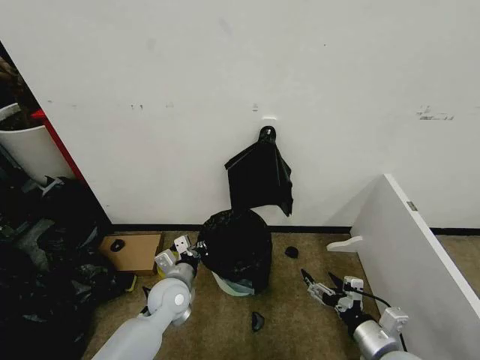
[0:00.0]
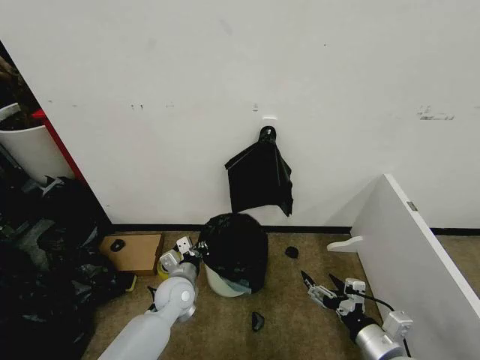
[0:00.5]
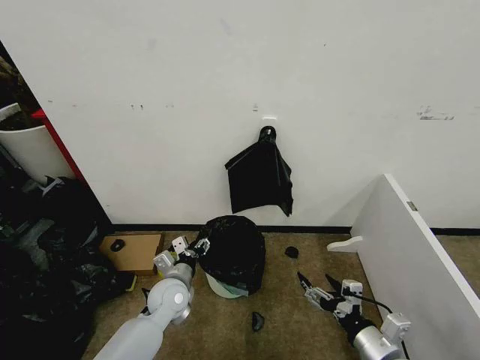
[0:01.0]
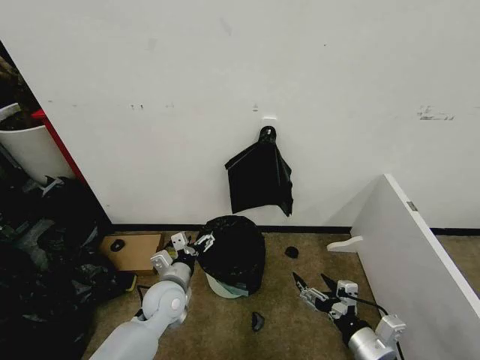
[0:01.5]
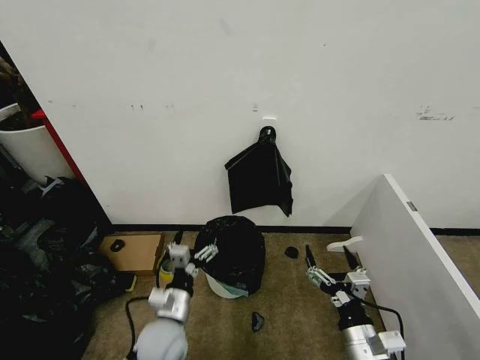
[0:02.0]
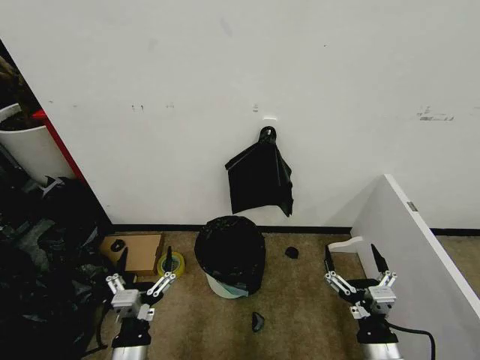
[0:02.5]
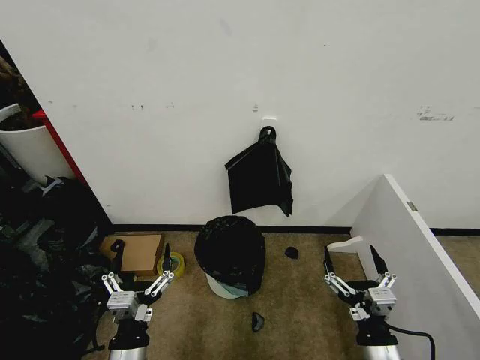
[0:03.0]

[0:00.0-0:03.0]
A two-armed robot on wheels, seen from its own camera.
Task of the whole recording: Place the garbage bag over the trash bin.
0:00.0 to 0:01.5: The left gripper opens its fingers.
0:01.5 to 0:03.0: The left gripper travels backward by approximately 20 cm.

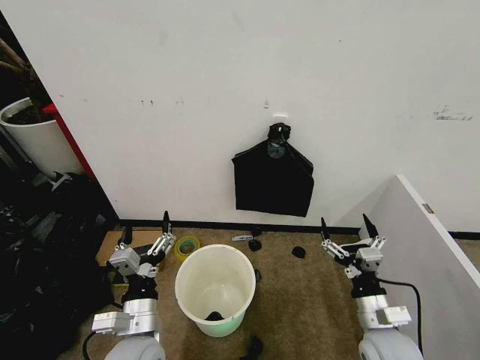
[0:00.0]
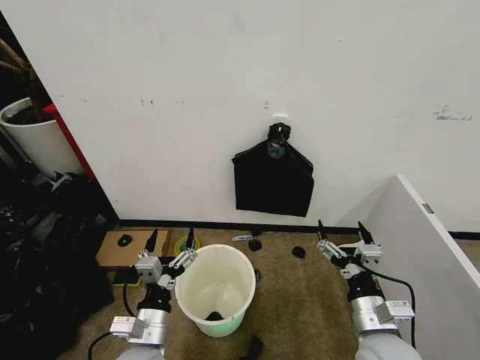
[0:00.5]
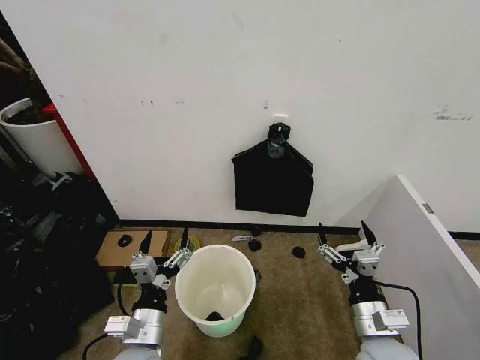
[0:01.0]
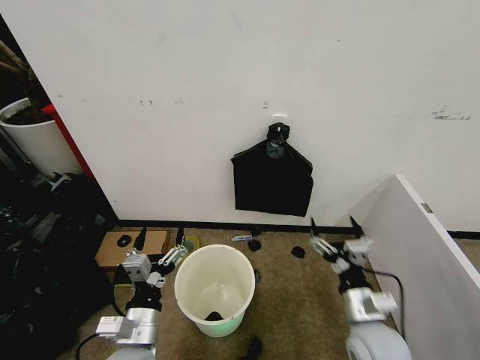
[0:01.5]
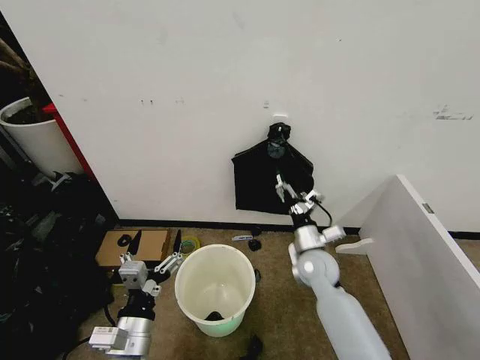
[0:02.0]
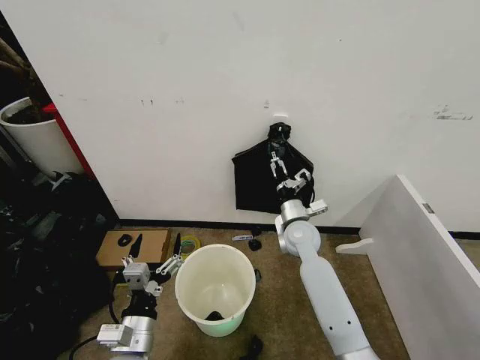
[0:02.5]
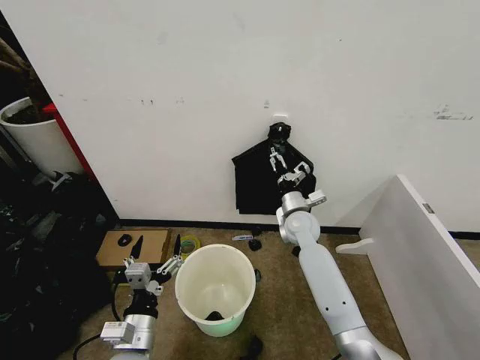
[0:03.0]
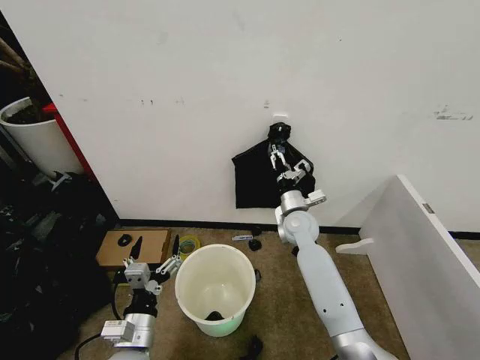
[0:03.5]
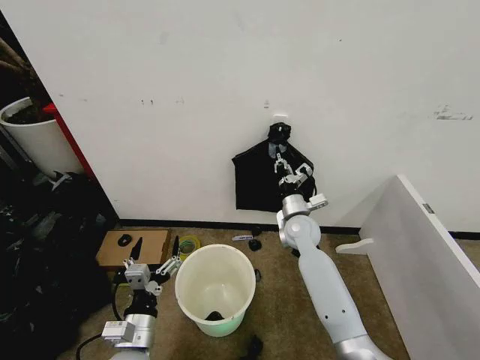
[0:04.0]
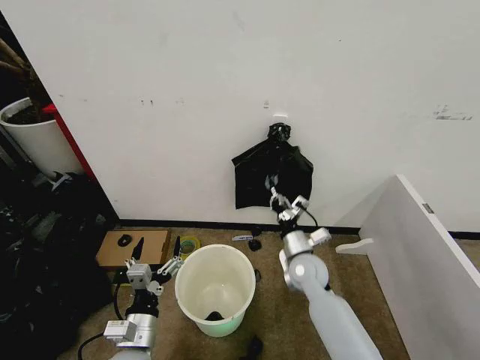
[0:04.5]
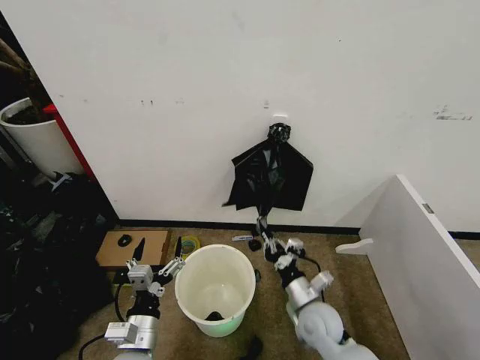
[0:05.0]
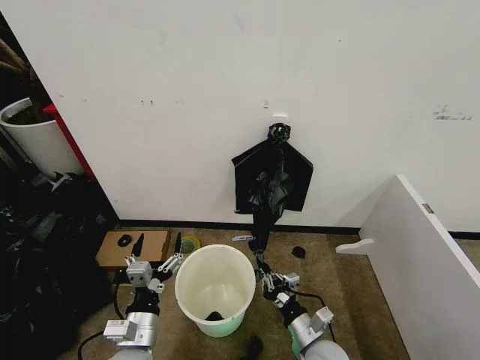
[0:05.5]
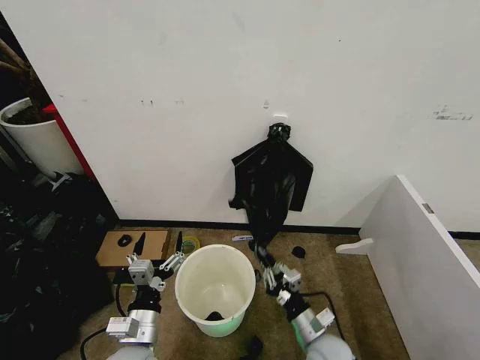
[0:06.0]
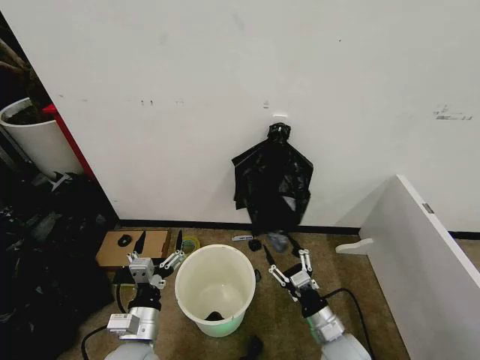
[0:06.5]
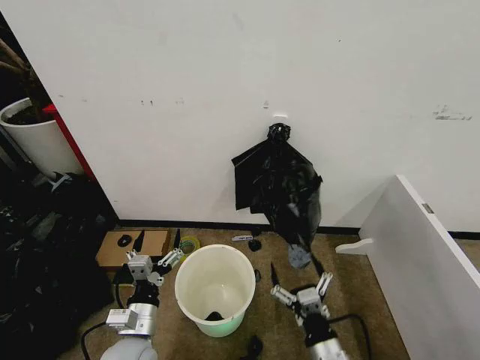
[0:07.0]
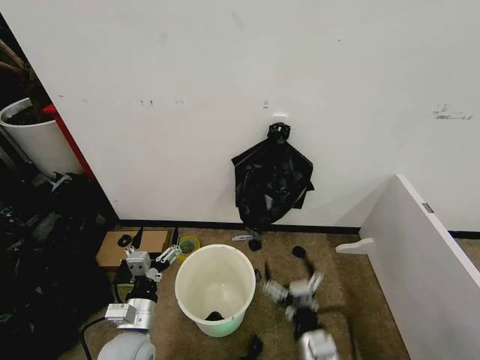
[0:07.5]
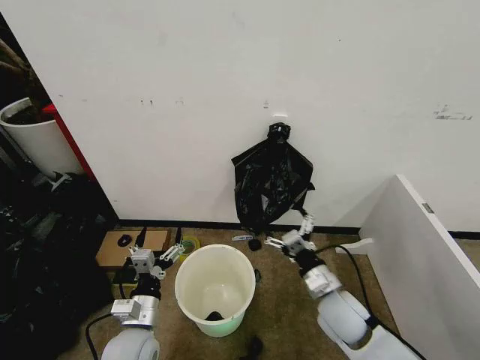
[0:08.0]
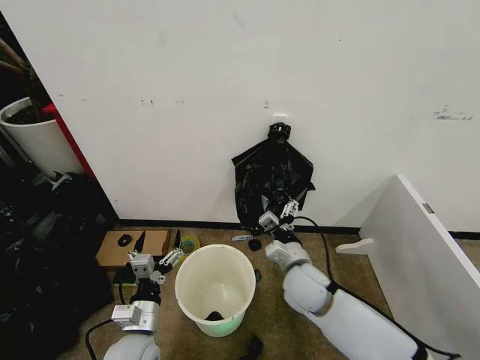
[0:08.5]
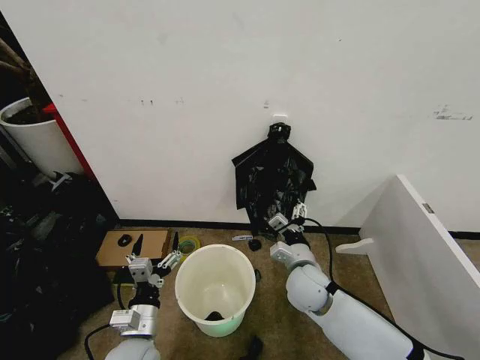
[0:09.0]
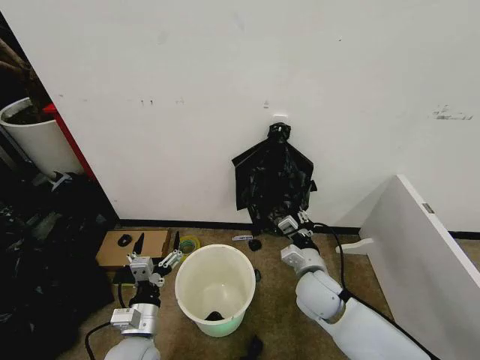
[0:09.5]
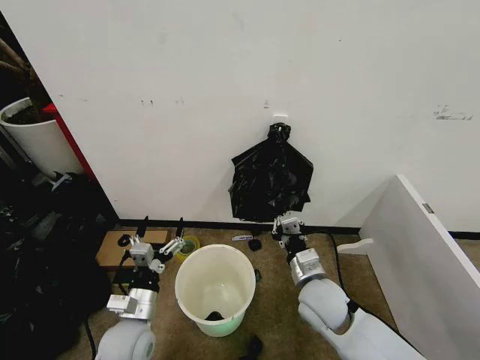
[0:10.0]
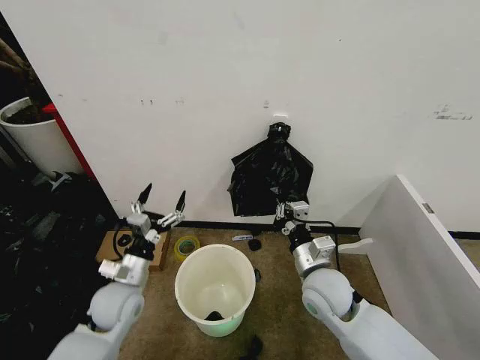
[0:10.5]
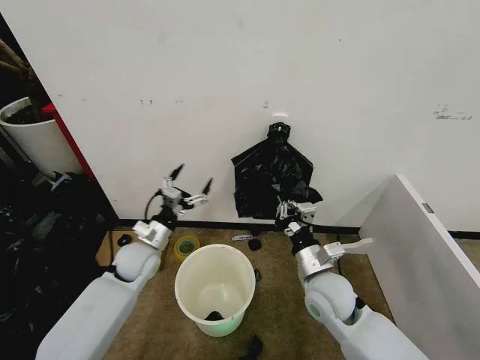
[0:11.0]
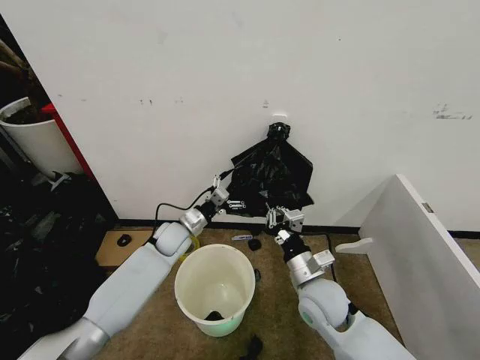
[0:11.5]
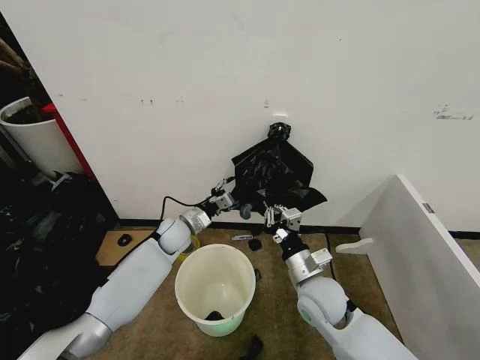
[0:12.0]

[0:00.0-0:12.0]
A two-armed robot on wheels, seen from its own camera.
Task of the whole recording: Place the garbage bag over the trash bin.
0:02.0 to 0:04.0: The left gripper is displaced downward by approximately 5 cm, while the right gripper moves forward, about 10 cm, and closes.
0:04.0 to 0:06.0: The right gripper goes roughly 30 cm backward and downward.
0:06.0 to 0:08.0: The right gripper shifts approximately 10 cm upward and forward, and opens its fingers.
0:08.0 to 0:10.0: The right gripper closes up.
0:10.0 to 0:12.0: The left gripper is displaced forward by some 25 cm, and closes.

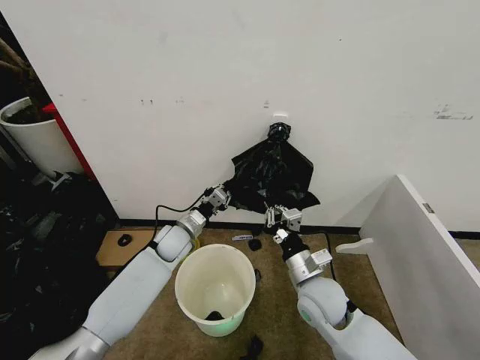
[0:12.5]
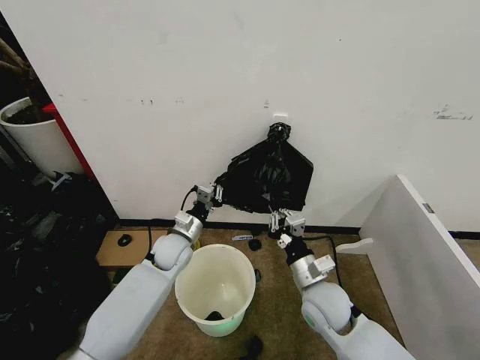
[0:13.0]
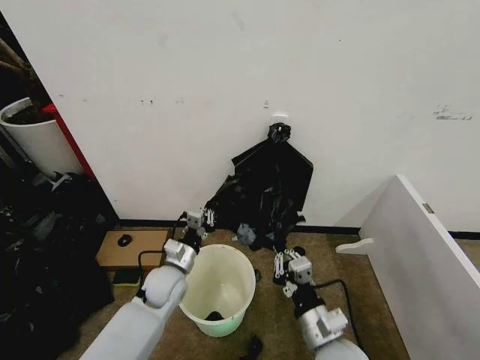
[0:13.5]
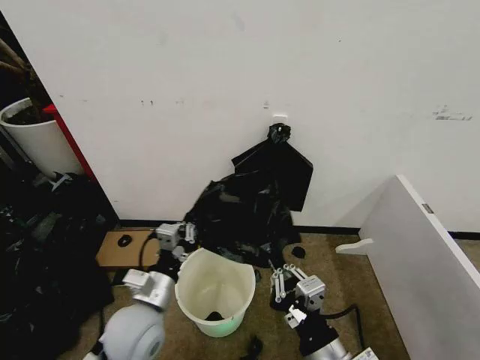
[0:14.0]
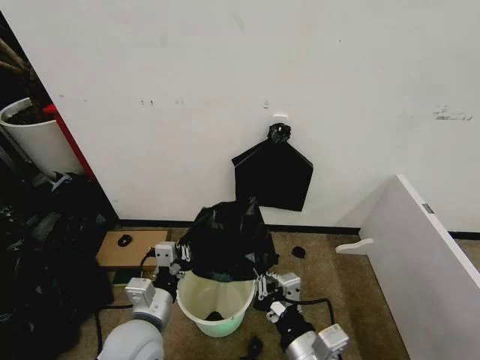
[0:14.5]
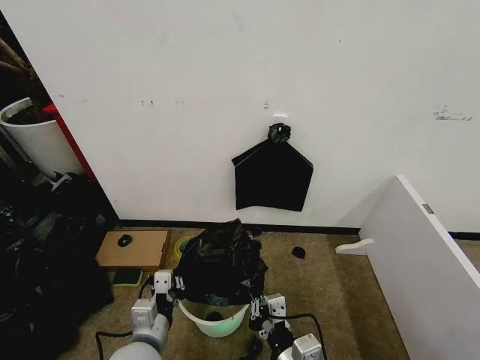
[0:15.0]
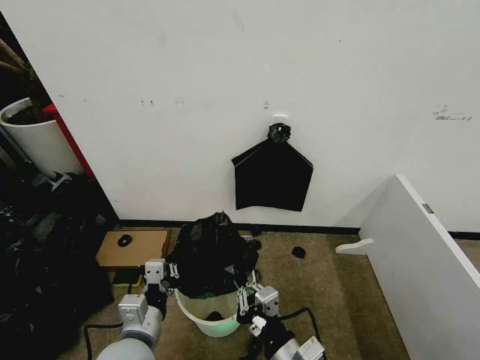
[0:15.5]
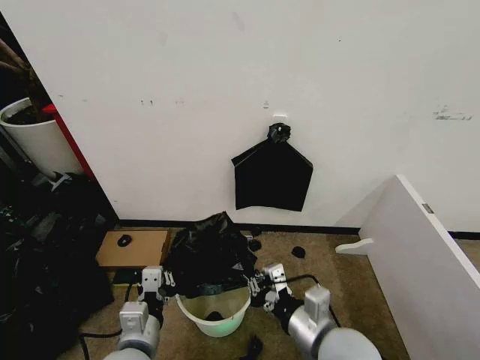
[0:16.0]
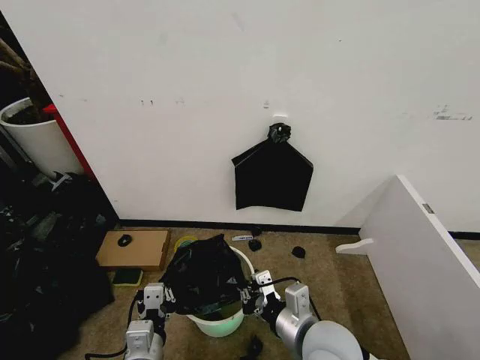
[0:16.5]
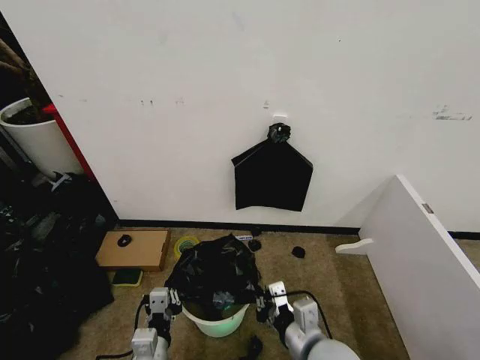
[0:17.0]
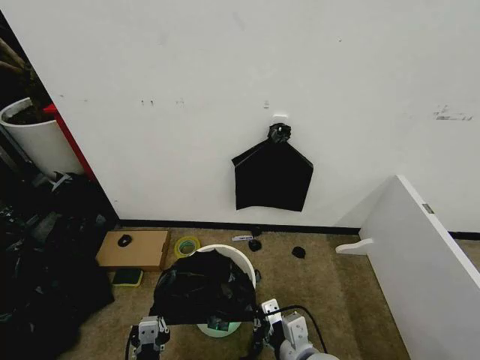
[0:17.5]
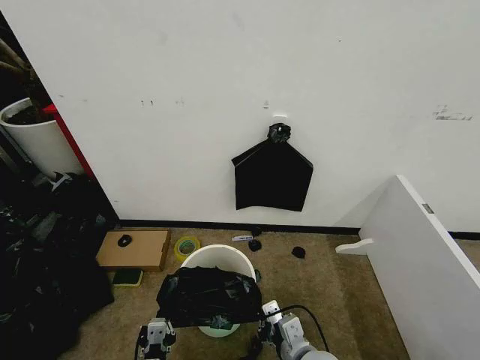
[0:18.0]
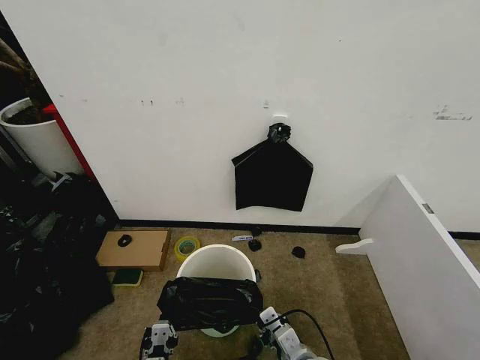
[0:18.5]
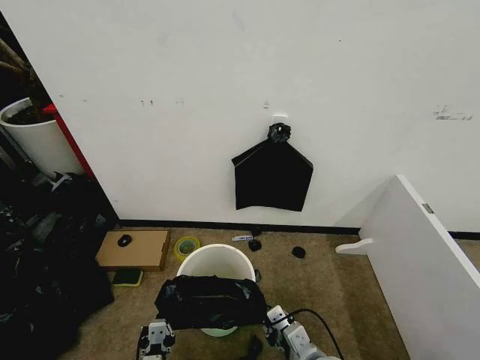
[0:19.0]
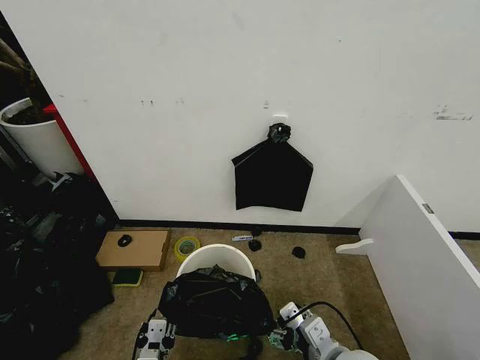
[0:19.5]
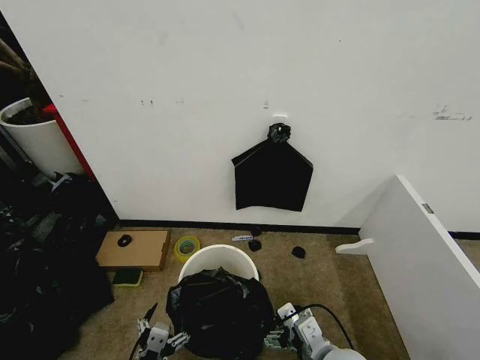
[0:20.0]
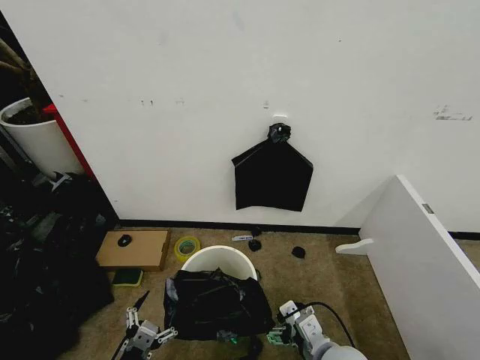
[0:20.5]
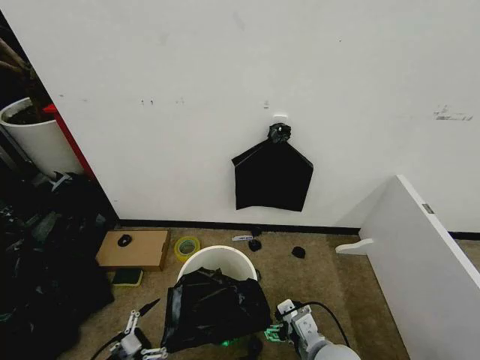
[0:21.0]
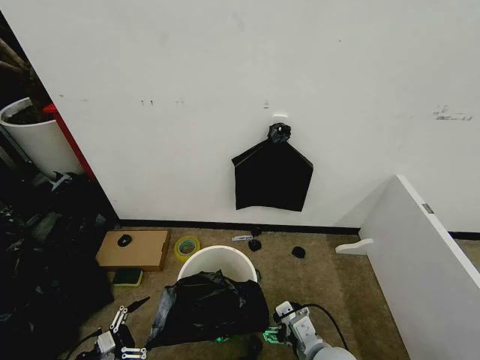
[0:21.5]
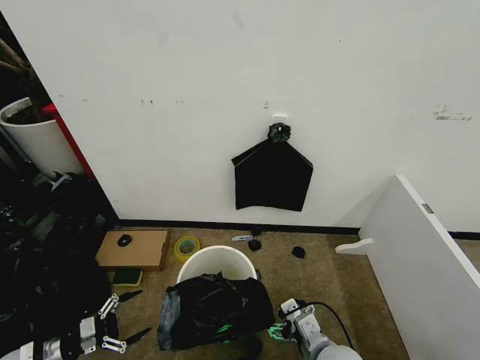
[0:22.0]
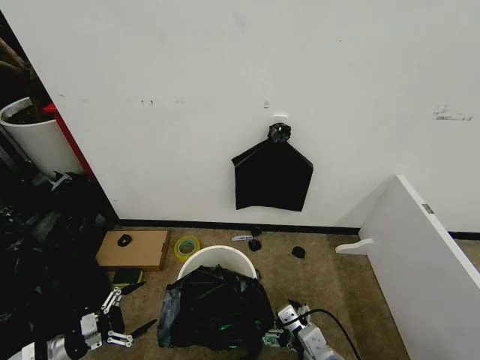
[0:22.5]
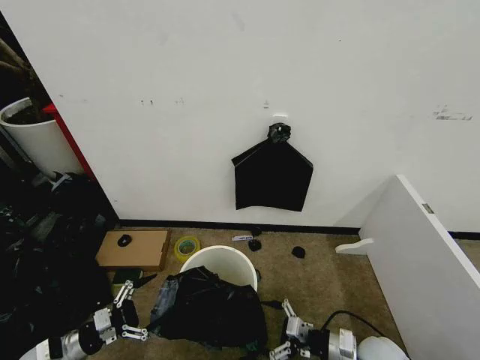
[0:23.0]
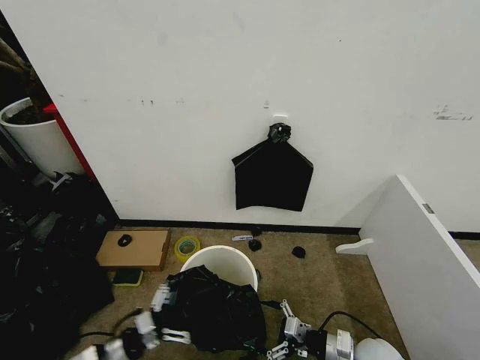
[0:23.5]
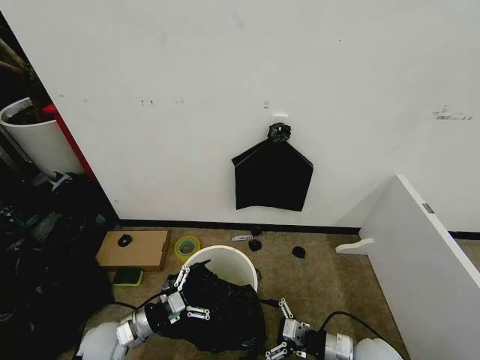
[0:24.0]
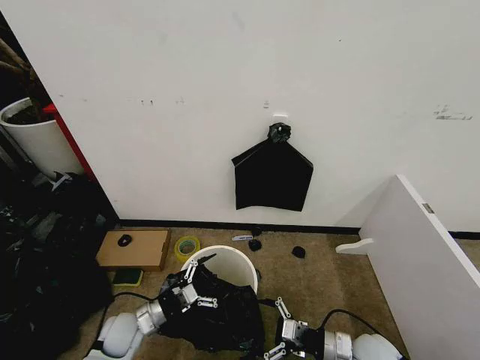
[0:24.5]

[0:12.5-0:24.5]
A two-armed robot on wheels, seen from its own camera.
Task of the whole recording: Place the garbage bag over the trash bin.
0:12.5 to 0:14.5: The grippers both shift backward by about 20 cm.
0:14.5 to 0:16.5: The left gripper heads backward, covering about 5 cm, while the right gripper moves forward, some 5 cm.
0:16.5 to 0:18.5: Both grippers travel together downward, about 10 cm.
0:18.5 to 0:20.5: The right gripper travels upward by about 5 cm, and opens up; the left gripper is displaced to the left by roughly 10 cm, and opens up.
0:20.5 to 0:22.5: The left gripper heads to the left and forward, covering some 25 cm.
0:22.5 to 0:24.5: The right gripper heads to the right, downward and forward, covering about 15 cm, while the left gripper is displaced to the right by about 20 cm.
